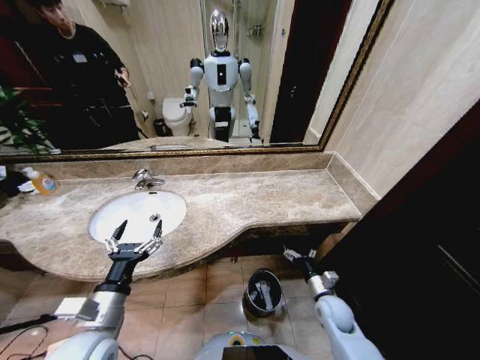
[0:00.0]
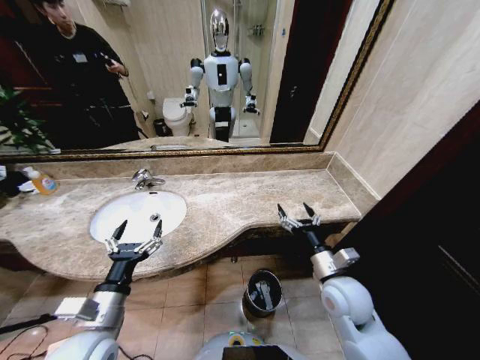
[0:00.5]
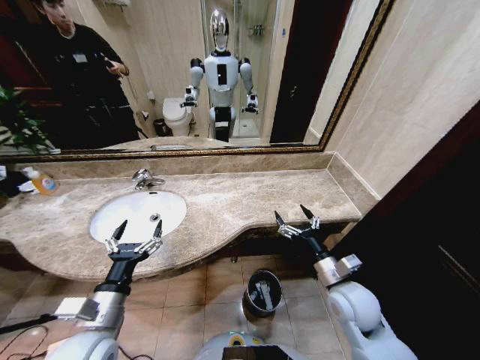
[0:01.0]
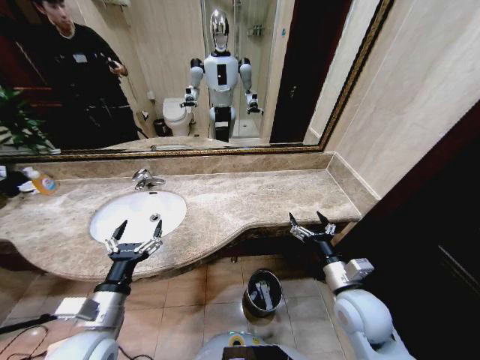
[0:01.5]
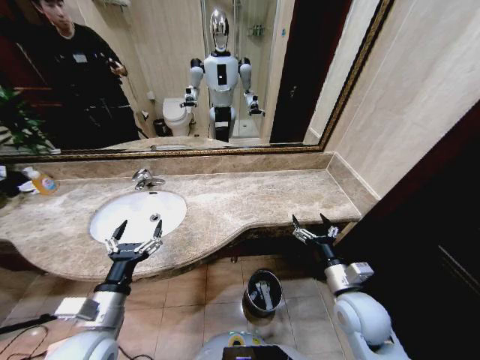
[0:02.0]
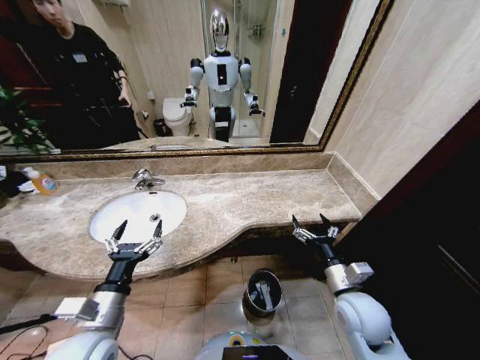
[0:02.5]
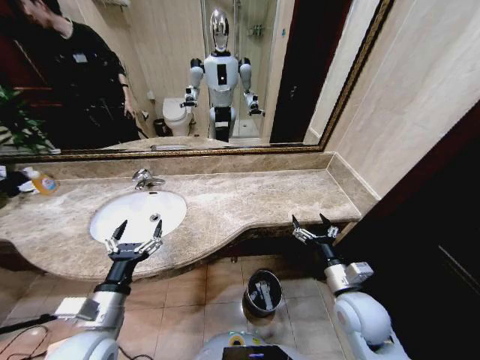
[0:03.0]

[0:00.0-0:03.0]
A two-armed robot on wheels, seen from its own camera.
Task of the whole recording: Pick up the trash from the sink and place it in the trash bin.
0:00.0 to 0:01.5: The right gripper travels upward by some 15 cm.
0:01.5 to 0:03.0: The grippers make only small movements.

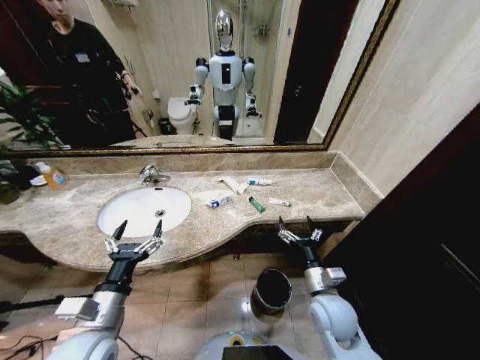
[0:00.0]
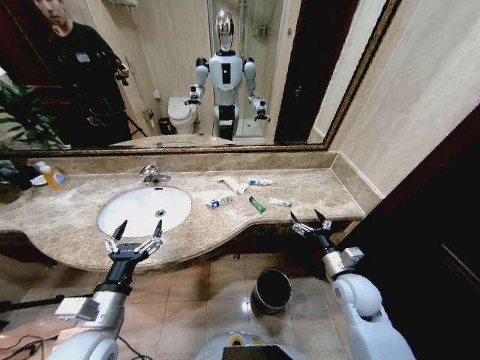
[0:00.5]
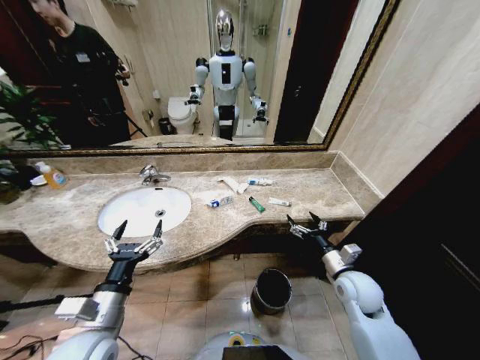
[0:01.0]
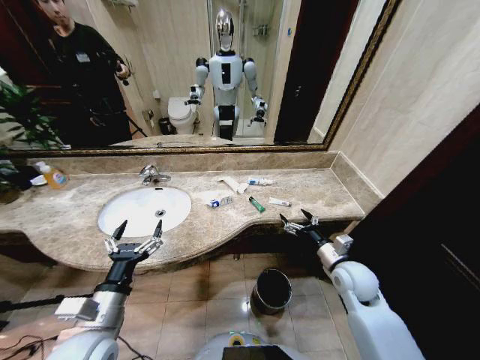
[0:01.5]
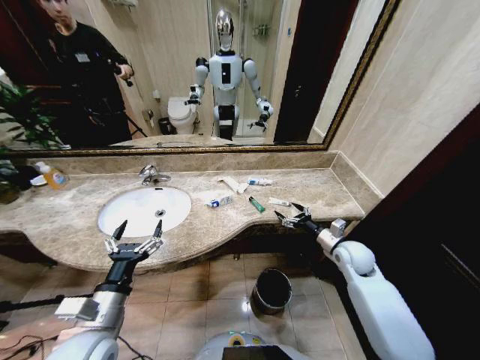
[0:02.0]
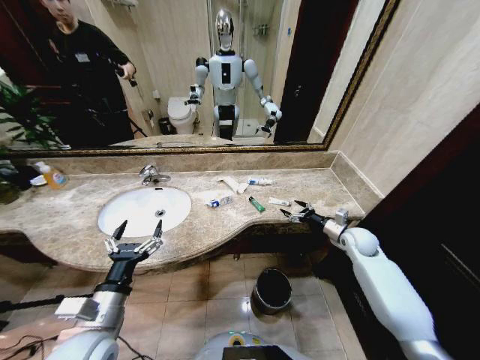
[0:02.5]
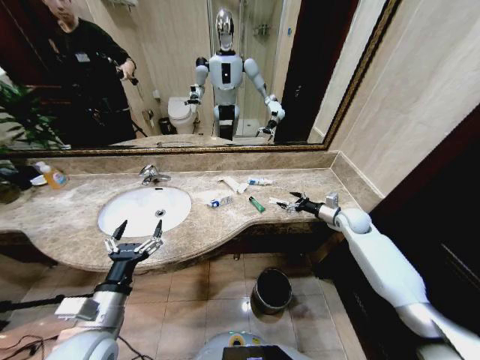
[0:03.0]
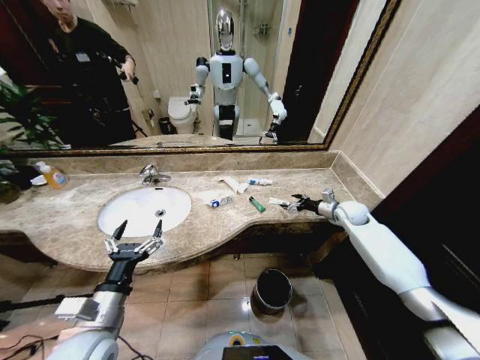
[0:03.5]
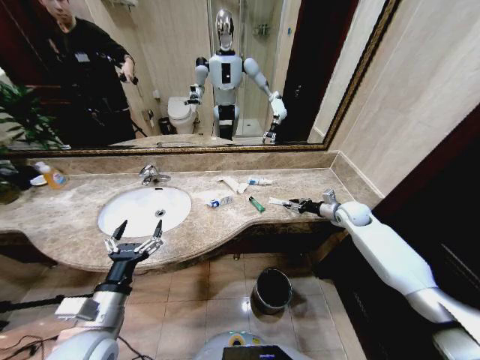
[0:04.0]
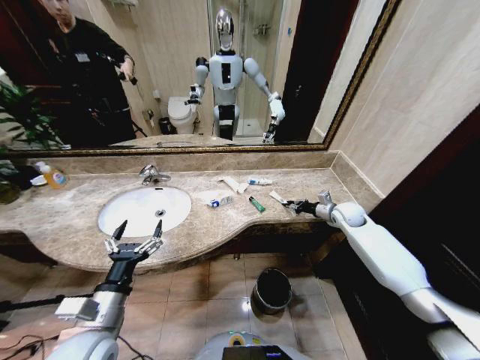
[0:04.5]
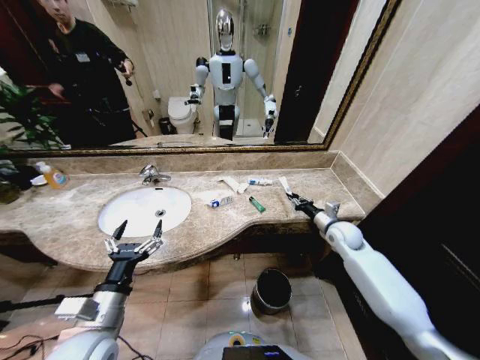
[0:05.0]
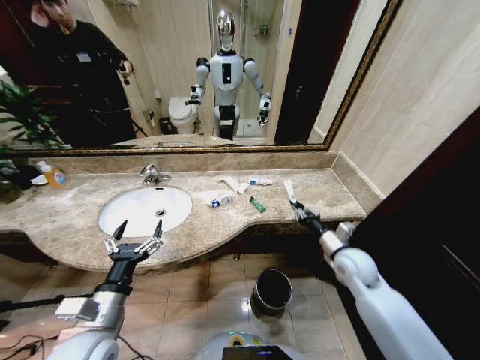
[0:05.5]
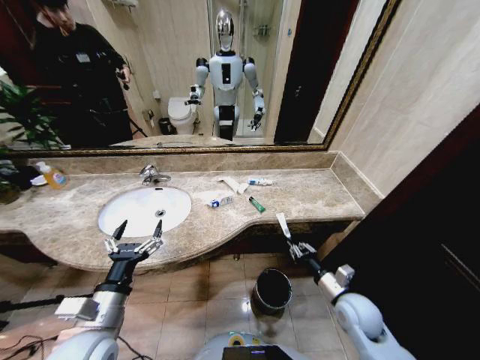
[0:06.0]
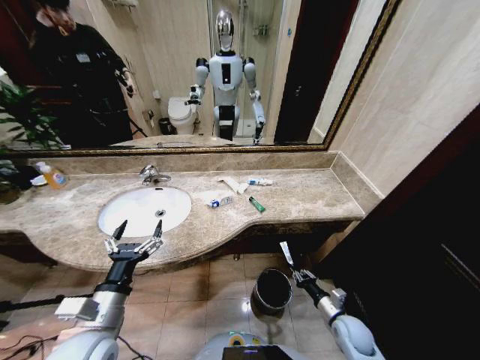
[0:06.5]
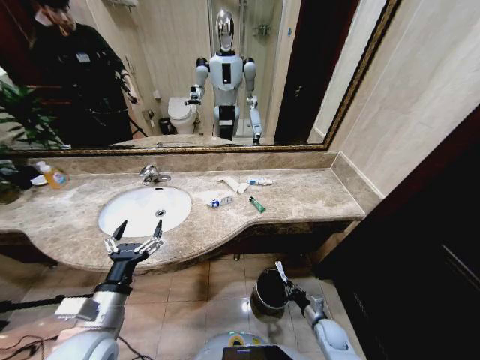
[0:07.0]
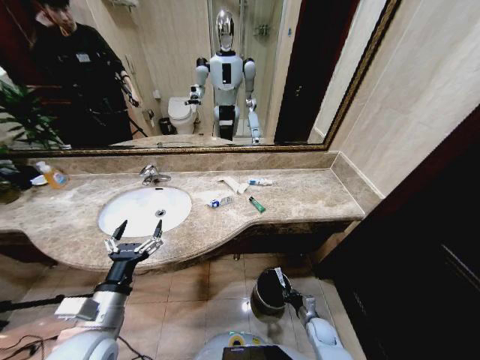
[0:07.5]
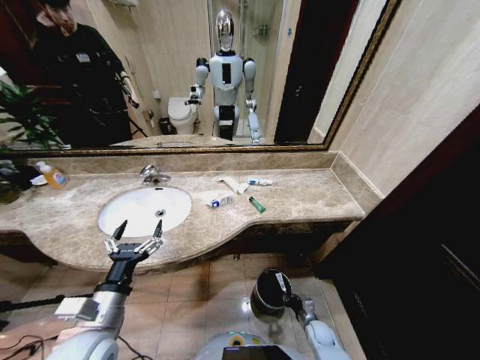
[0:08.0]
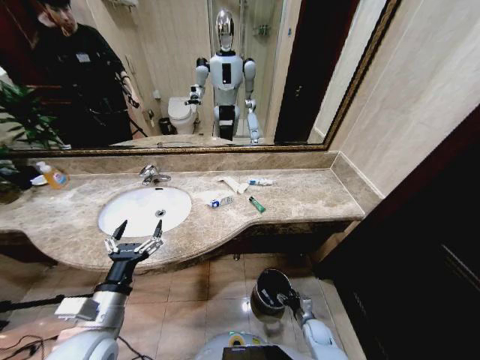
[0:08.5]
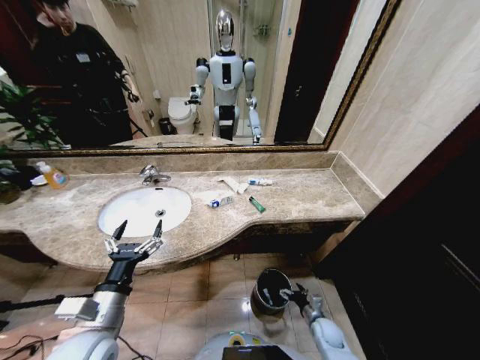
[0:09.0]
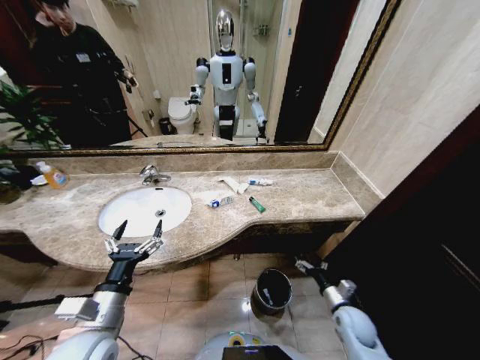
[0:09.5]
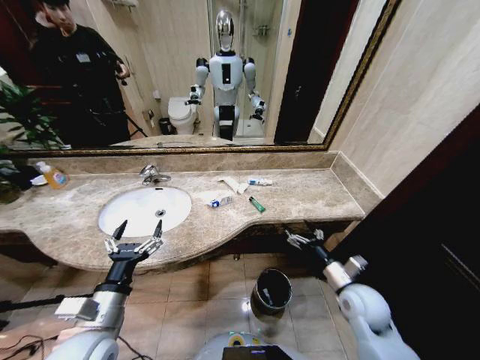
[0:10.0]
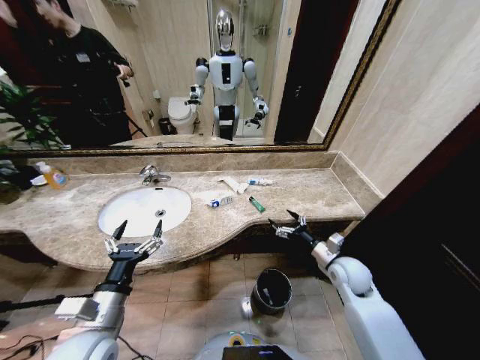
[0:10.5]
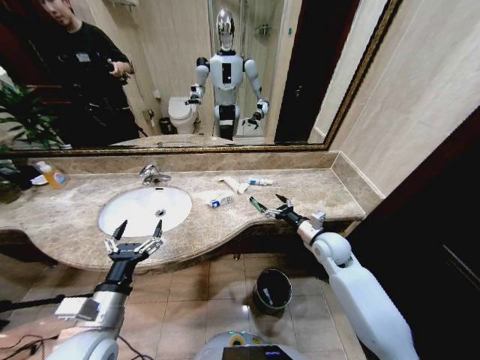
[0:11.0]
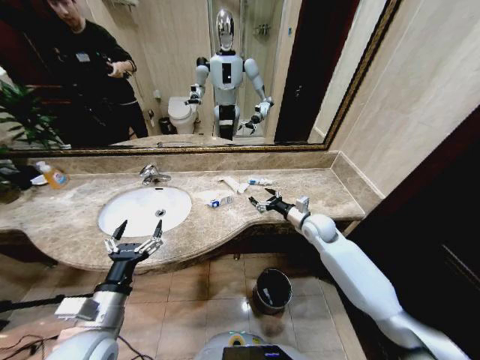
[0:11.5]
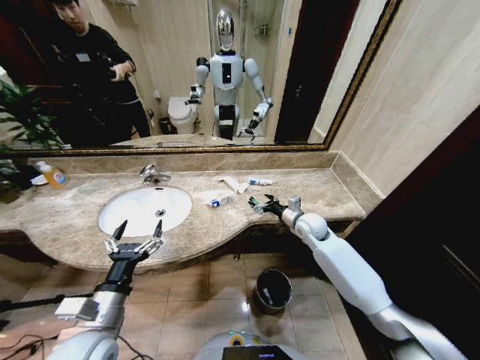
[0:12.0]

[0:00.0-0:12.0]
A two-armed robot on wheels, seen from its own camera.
Task of the whole recording: Pick up the trash from the sink and place it in the trash bin.
0:02.0 to 0:04.0: The right gripper heads forward and to the right, covering approximately 15 cm, and closes.
0:04.0 to 0:06.0: The right gripper travels backward by some 30 cm.
0:06.0 to 0:08.0: The right gripper is displaced downward by approximately 25 cm.
0:08.0 to 0:10.0: The right gripper is displaced upward by approximately 30 cm, and opens.
0:10.0 to 0:12.0: The right gripper moves forward, approximately 20 cm.

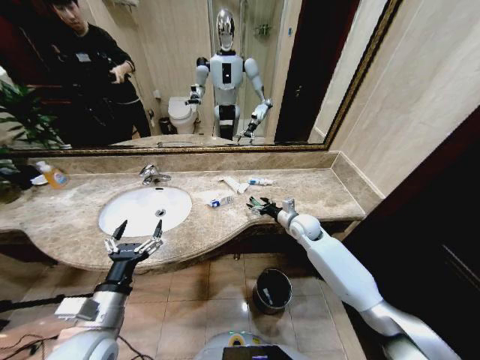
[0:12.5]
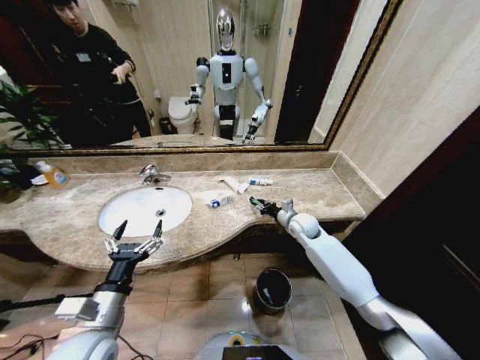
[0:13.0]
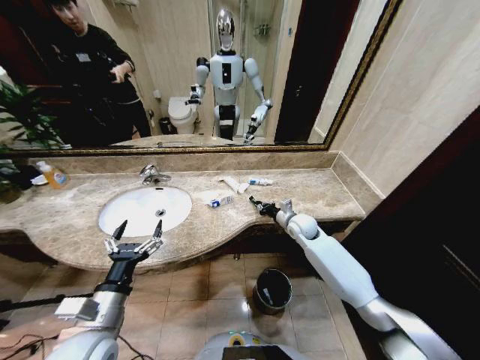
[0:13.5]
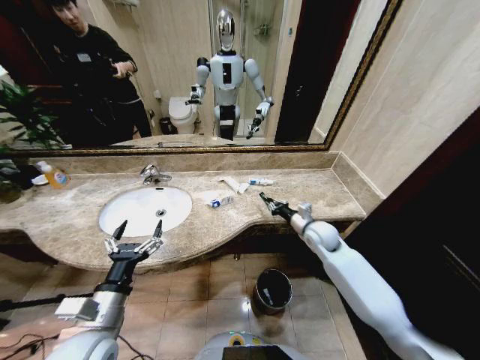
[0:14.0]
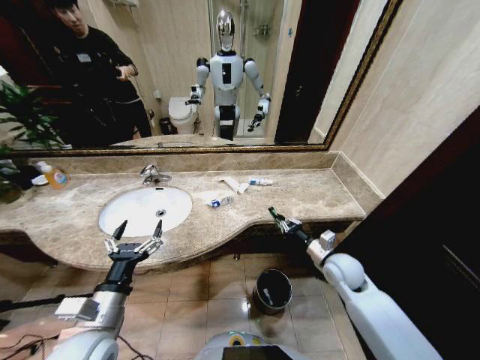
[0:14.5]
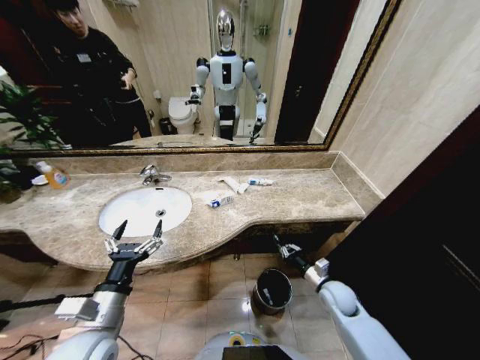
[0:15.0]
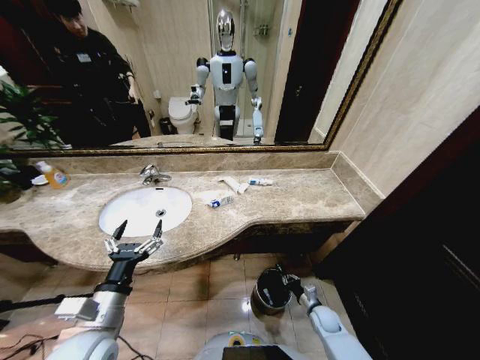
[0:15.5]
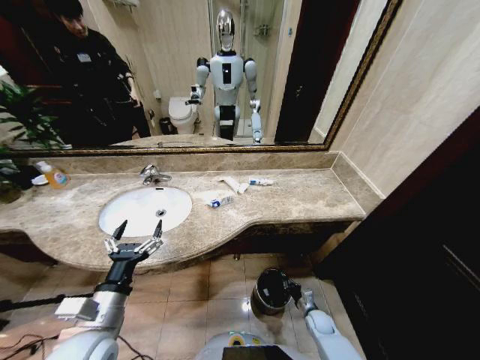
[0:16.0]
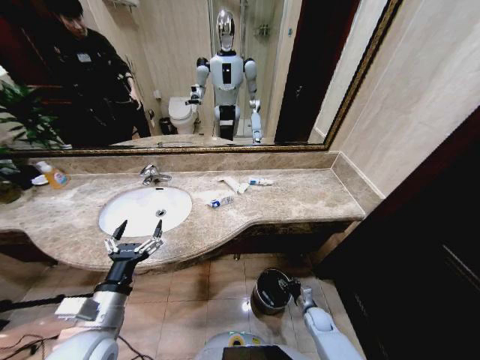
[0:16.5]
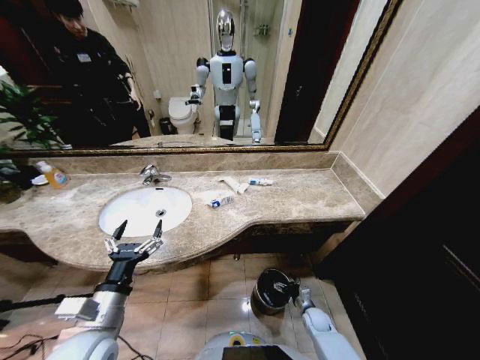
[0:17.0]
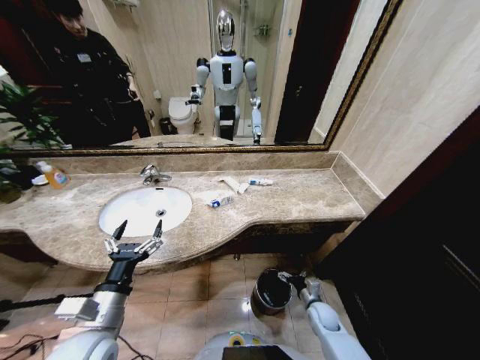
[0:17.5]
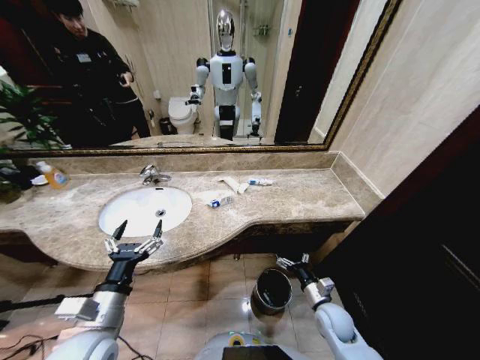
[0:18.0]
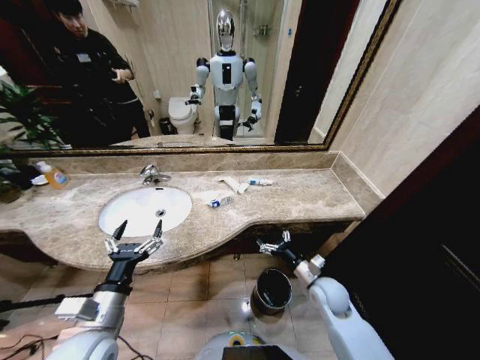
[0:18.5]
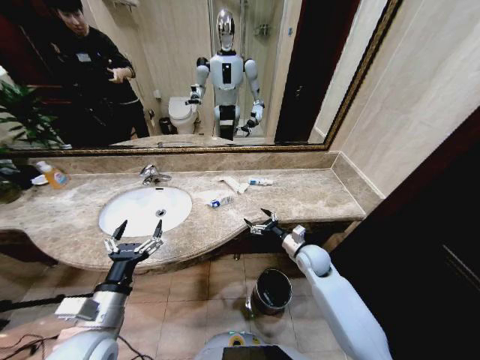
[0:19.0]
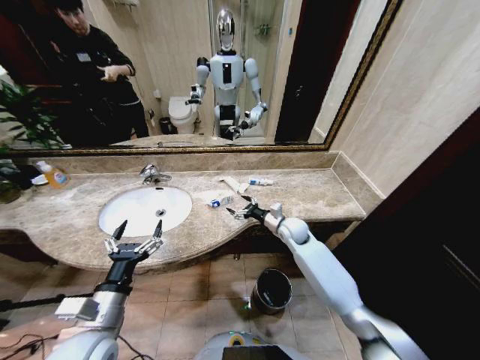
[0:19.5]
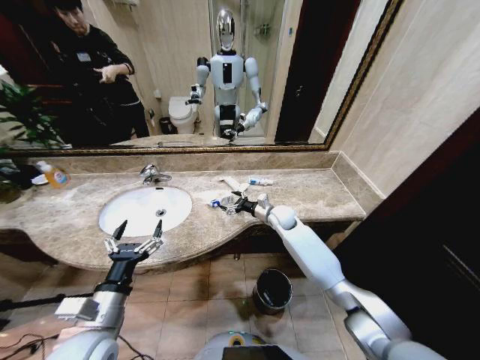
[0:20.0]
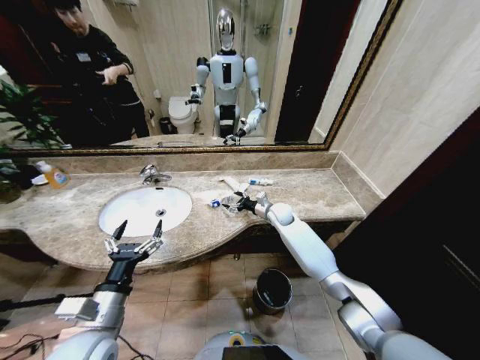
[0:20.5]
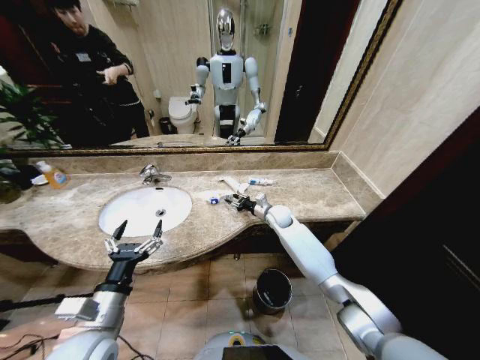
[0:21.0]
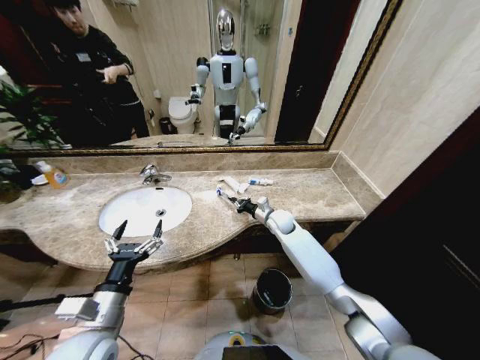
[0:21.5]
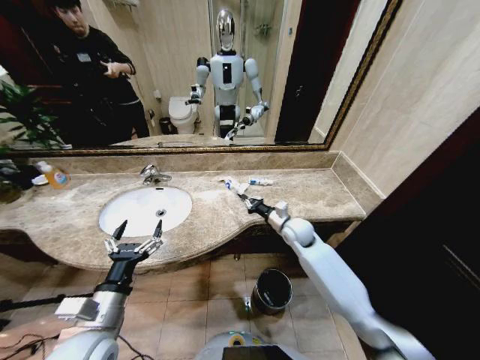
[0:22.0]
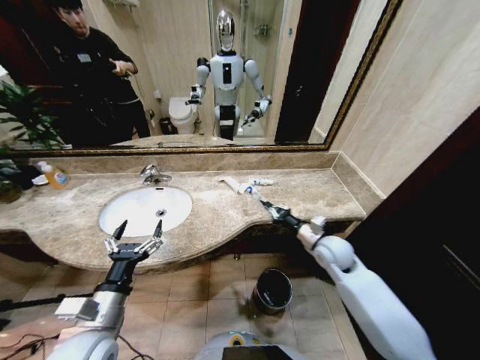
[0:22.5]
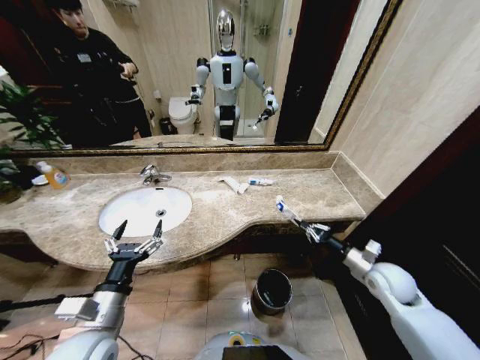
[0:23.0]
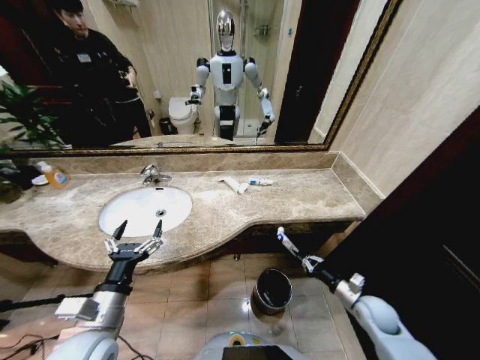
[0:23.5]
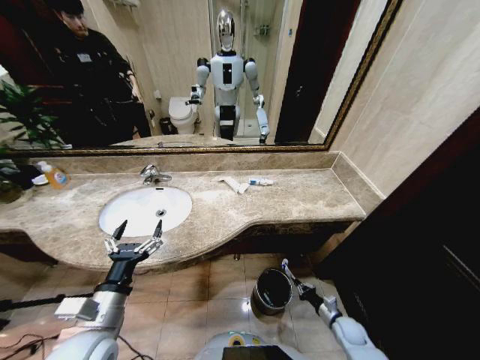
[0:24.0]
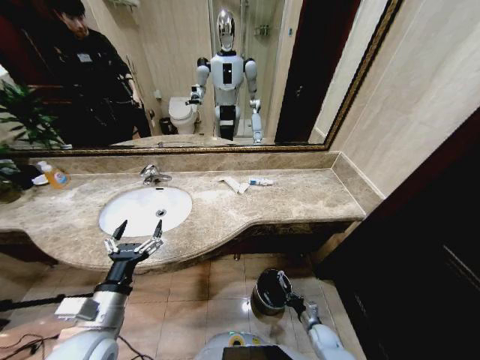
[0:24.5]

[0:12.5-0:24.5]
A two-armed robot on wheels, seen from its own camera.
Task of the whole recording: Pick up the trash from the sink and place it in the trash bin.
0:12.5 to 0:14.5: The right gripper is displaced backward and to the right by about 15 cm, and closes.
0:14.5 to 0:16.5: The right gripper travels downward by approximately 30 cm, and opens its fingers.
0:16.5 to 0:18.5: The right gripper heads upward, covering roughly 25 cm, and opens up.
0:18.5 to 0:20.5: The right gripper heads forward, covering roughly 25 cm.
0:20.5 to 0:22.5: The right gripper heads backward and to the right, covering roughly 20 cm, and closes its fingers.
0:22.5 to 0:24.5: The right gripper travels downward and backward by about 40 cm.
